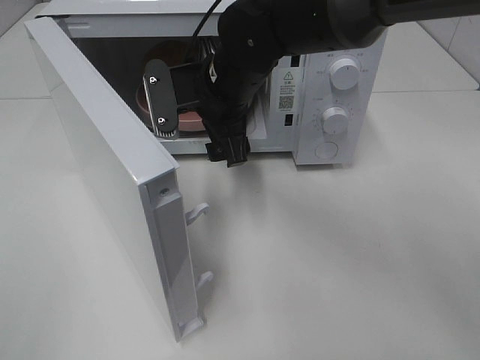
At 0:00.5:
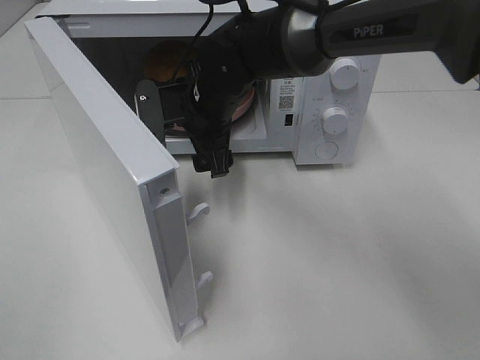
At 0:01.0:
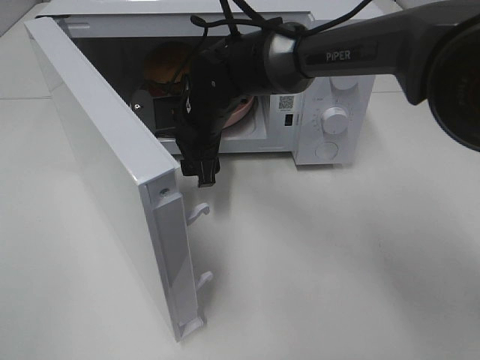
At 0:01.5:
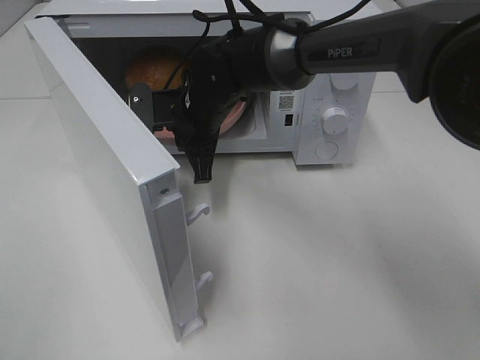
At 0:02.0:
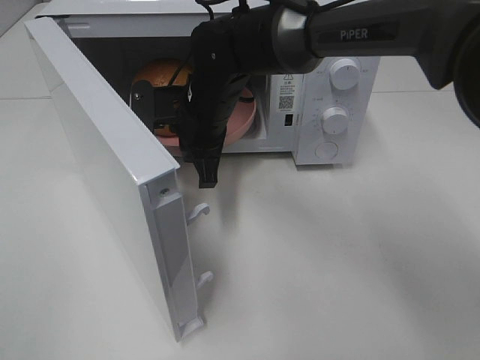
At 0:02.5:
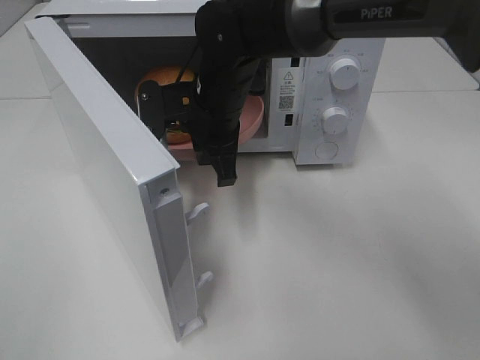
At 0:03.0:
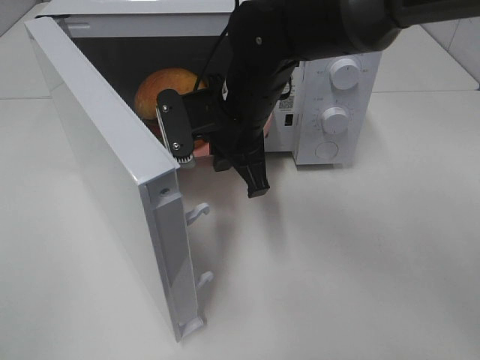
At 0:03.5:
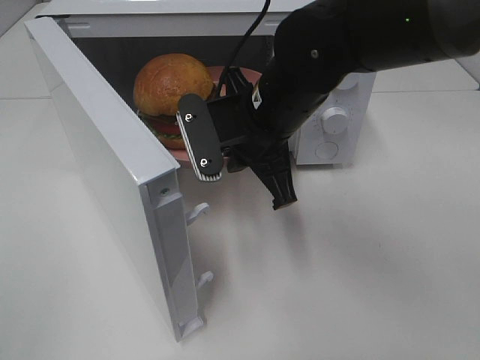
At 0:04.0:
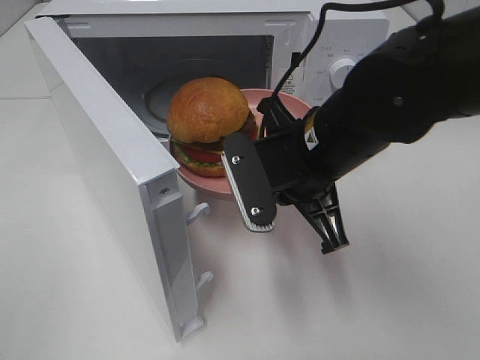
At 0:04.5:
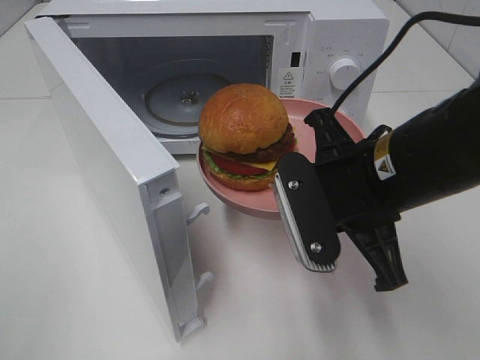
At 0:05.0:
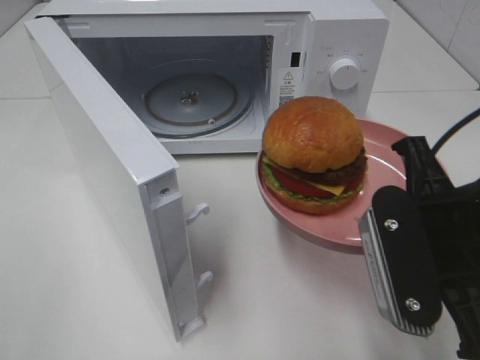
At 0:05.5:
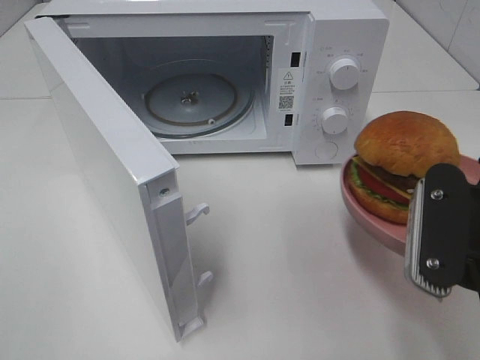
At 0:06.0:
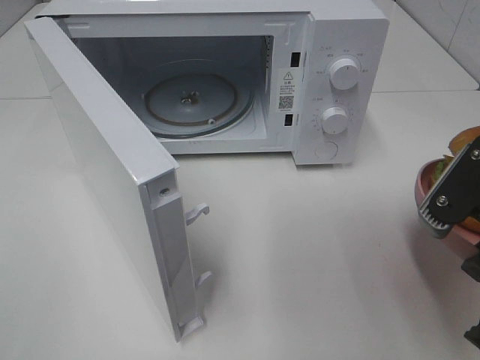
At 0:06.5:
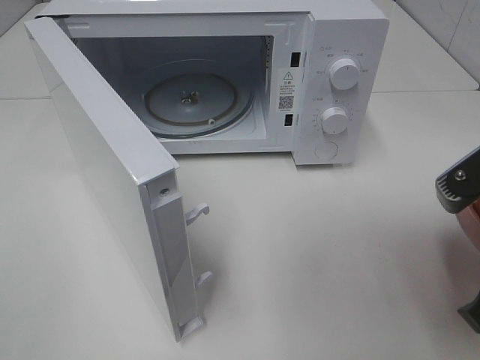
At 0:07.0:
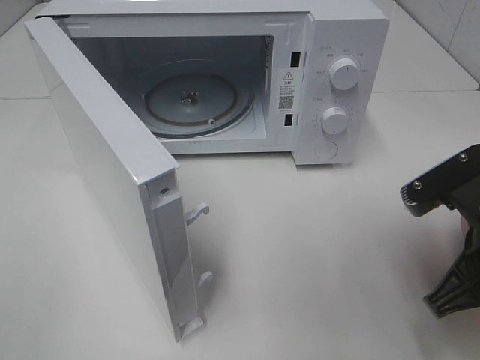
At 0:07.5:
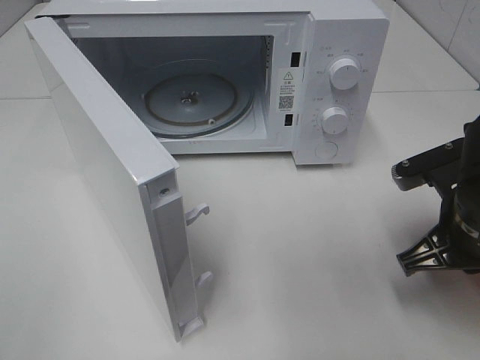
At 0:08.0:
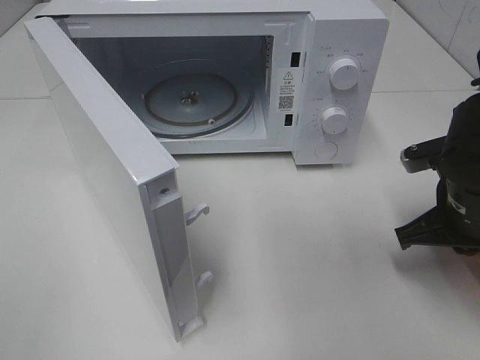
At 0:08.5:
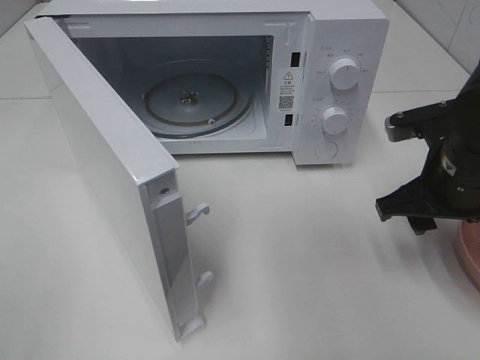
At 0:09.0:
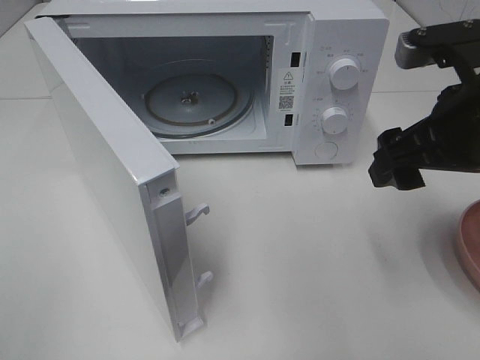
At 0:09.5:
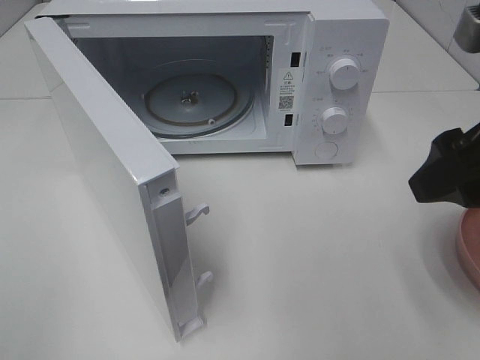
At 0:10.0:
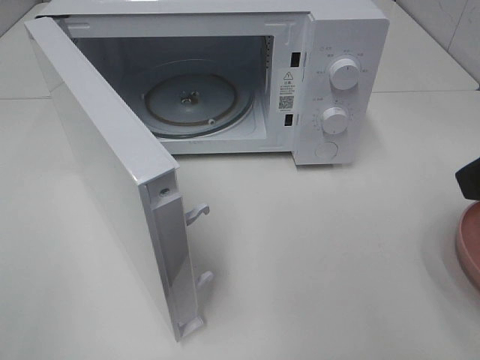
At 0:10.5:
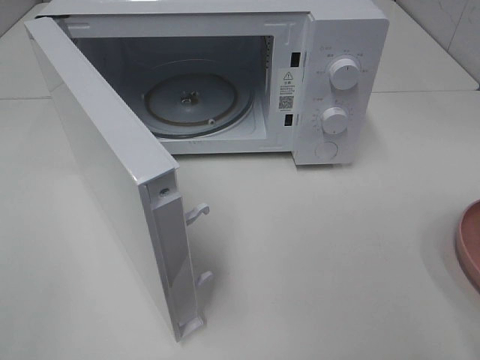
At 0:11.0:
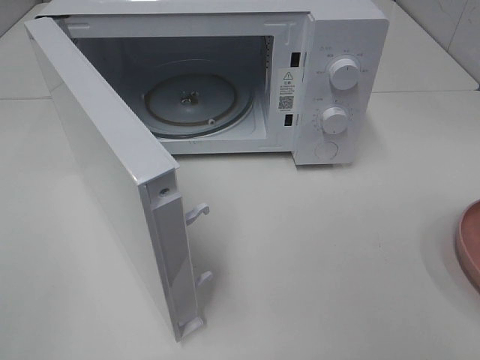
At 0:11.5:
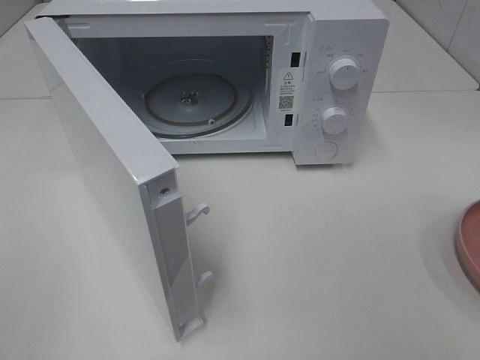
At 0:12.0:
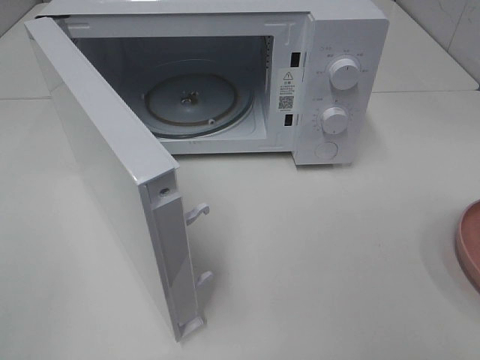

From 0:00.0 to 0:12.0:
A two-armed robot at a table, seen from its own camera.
Task of the whole recording: Heat the burger.
Step, from 0:01.5 to 0:08.0: Right hand: place the plate on the table.
From 0:00.0 to 0:02.0: The right gripper changes place by roughly 5 cm, and closes its fingers.
From 0:02.0 to 0:04.0: The right gripper moves backward and to the right, some 15 cm.
From 0:04.0 to 0:06.0: The right gripper shifts about 20 cm to the right and backward.
From 0:06.0 to 0:08.0: The right gripper travels forward and downward by roughly 15 cm.
From 0:08.0 to 0:10.0: The right gripper travels upward and backward by about 20 cm, and opens up.

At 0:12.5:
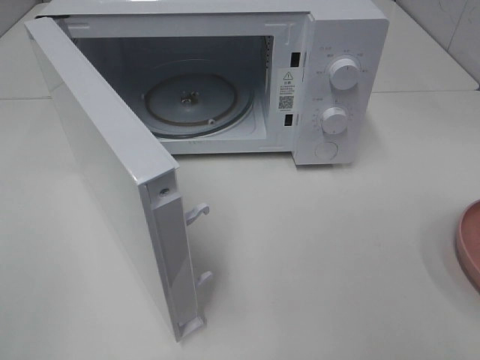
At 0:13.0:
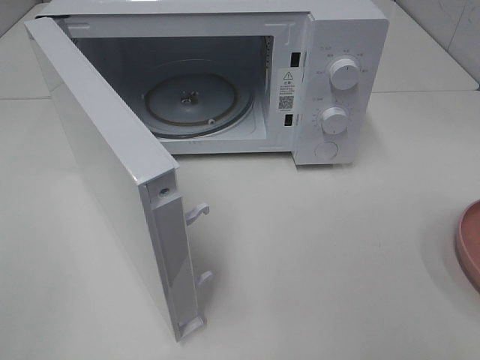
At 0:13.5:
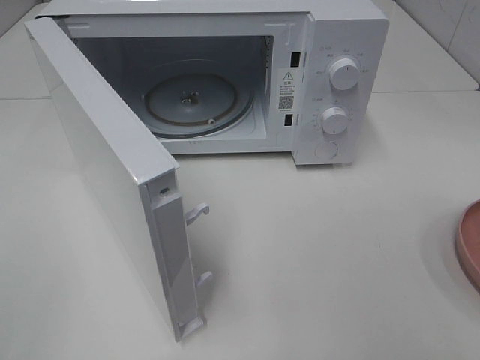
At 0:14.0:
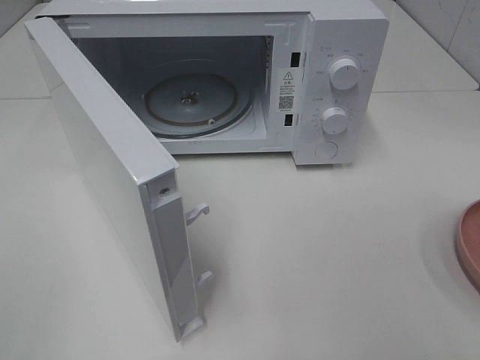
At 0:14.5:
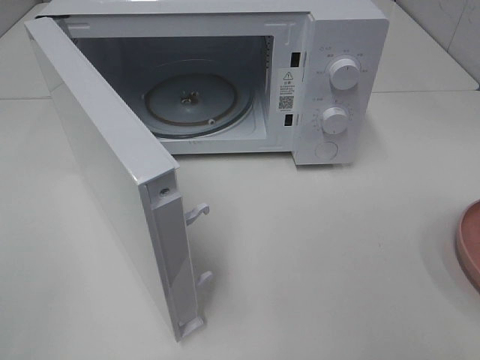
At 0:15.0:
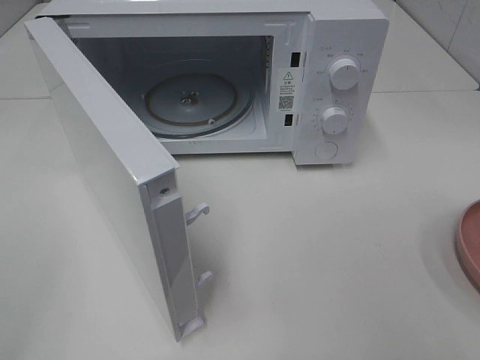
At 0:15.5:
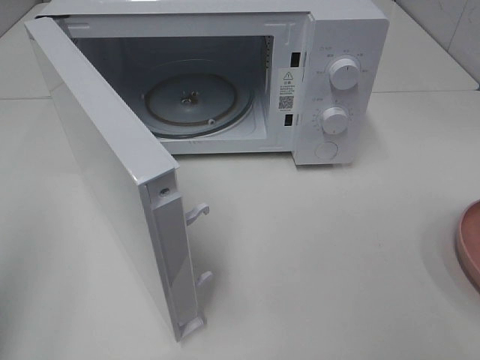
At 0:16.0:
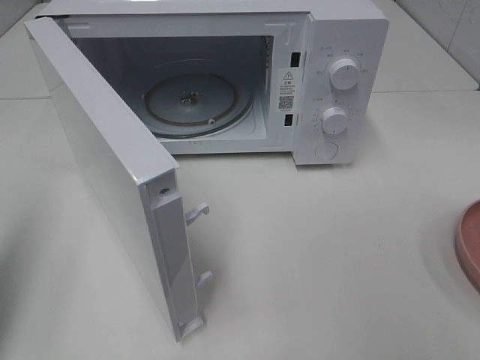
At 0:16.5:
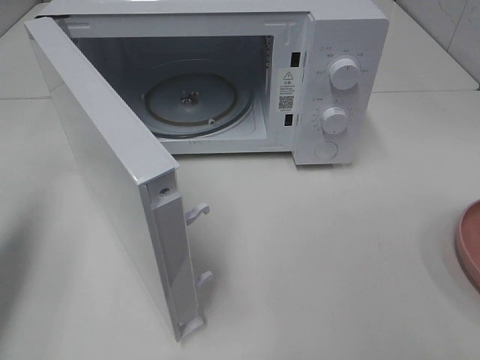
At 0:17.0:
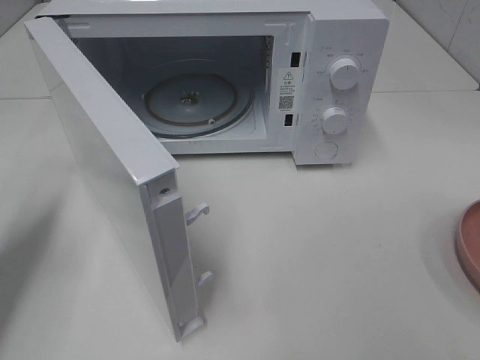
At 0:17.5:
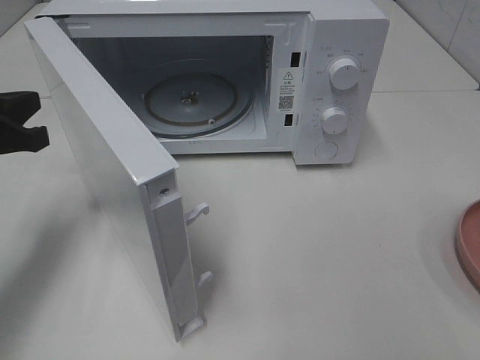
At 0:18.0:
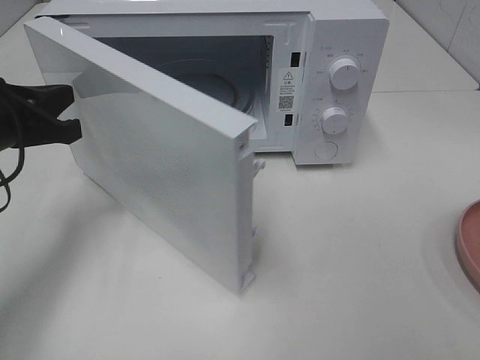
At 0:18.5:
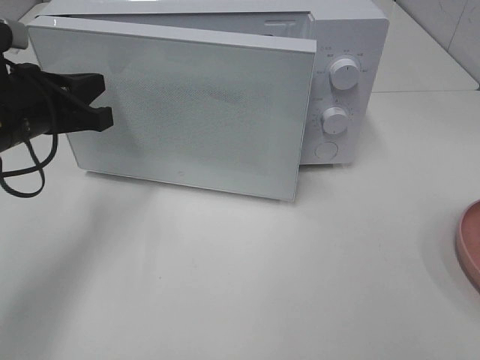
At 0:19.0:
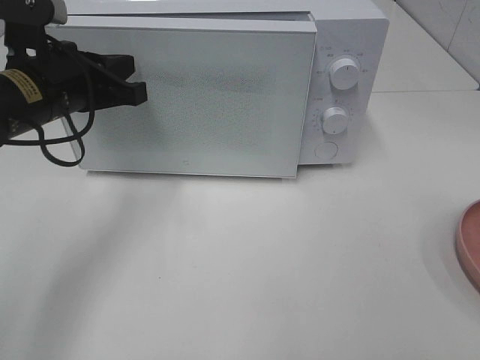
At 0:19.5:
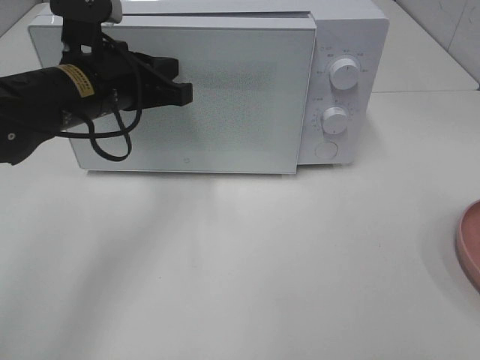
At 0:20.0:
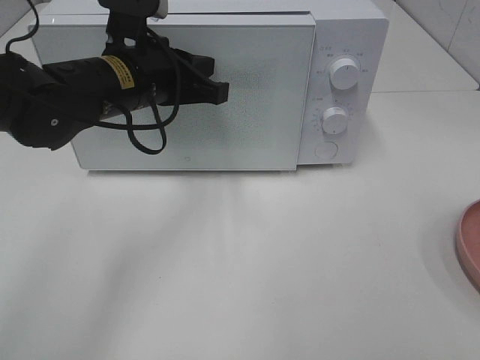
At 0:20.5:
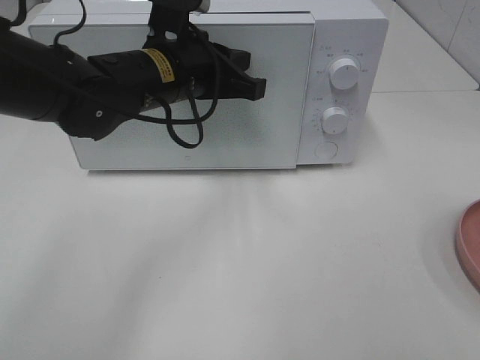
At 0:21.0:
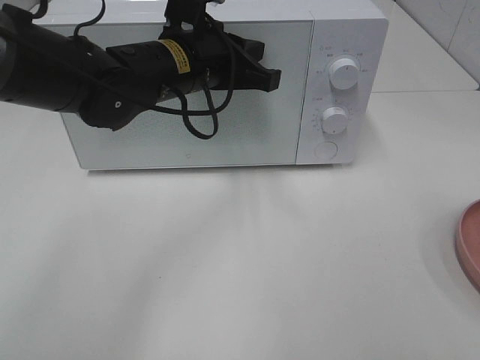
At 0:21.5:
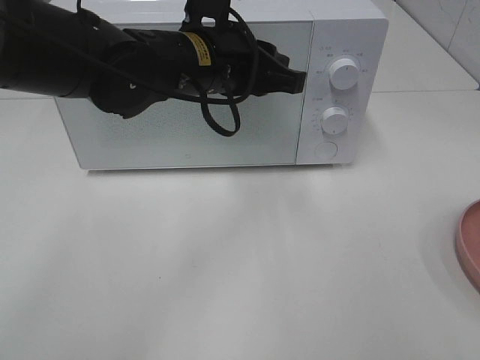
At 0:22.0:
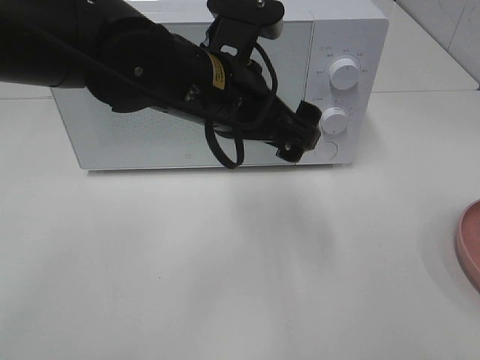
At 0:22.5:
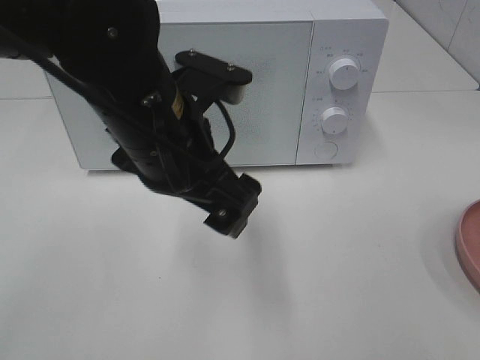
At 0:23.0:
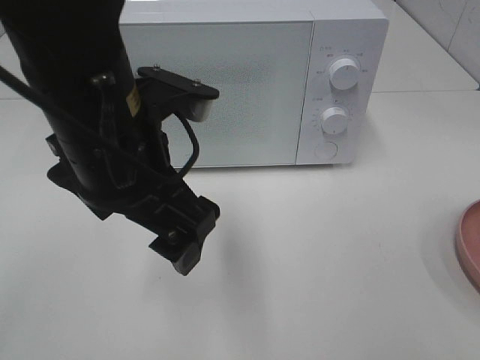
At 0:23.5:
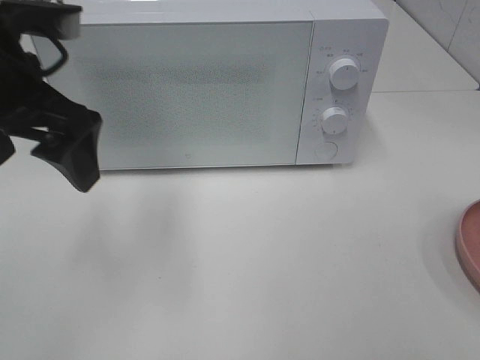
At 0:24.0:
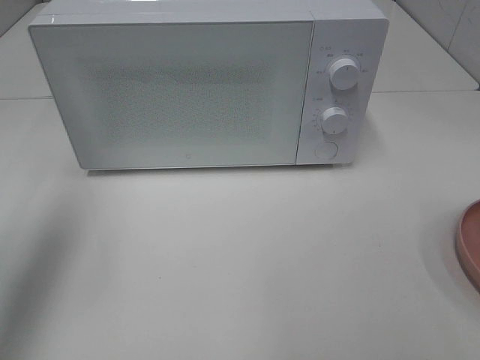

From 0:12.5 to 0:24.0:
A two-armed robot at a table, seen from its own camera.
Task of the whole recording: Heat the burger.
Step, from 0:12.5 to 0:20.5: Left hand: close the microwave door.
From 0:12.5 to 0:14.5: Both grippers stay put.
From 0:14.5 to 0:16.5: The left gripper is displaced forward by approximately 20 cm, and closes its fingers.
From 0:16.5 to 0:18.5: The left gripper heads to the right, forward and downward, covering about 15 cm.
From 0:18.5 to 0:20.0: The left gripper moves to the right, about 10 cm.
From 0:20.0 to 0:22.0: The left gripper travels to the right and backward by about 10 cm, and opens its fingers.
From 0:22.0 to 0:24.0: The left gripper travels to the left by about 25 cm.

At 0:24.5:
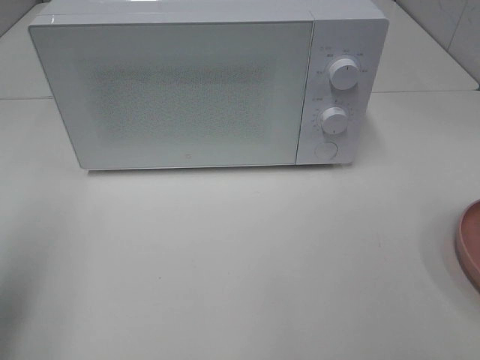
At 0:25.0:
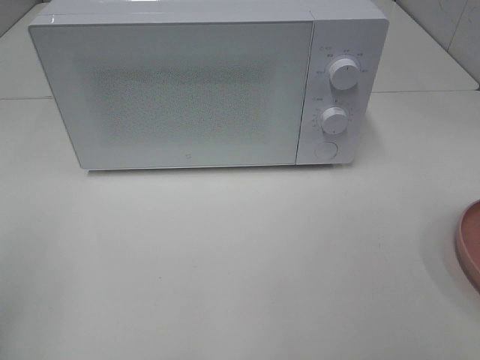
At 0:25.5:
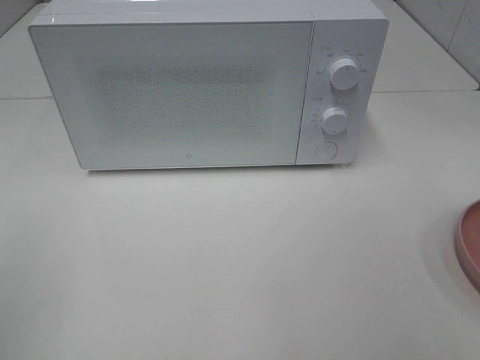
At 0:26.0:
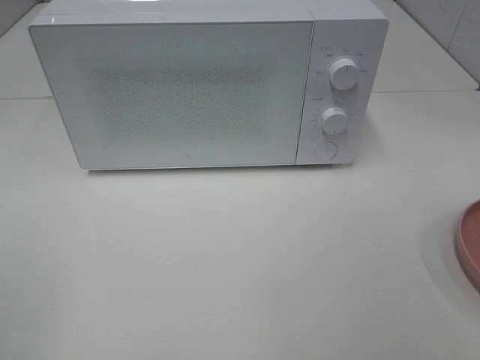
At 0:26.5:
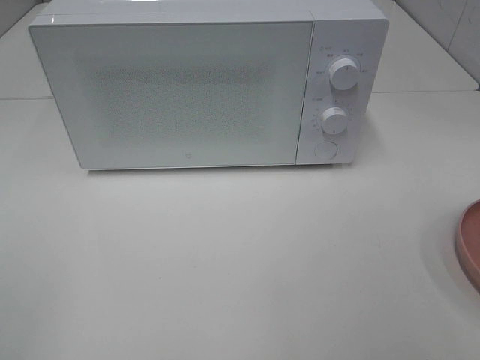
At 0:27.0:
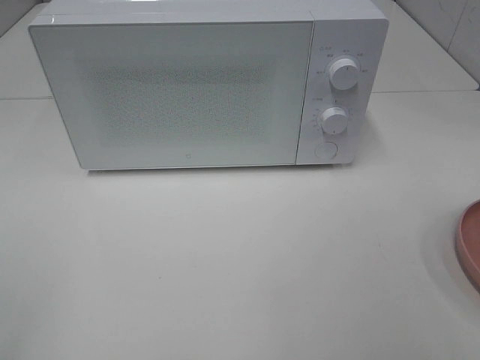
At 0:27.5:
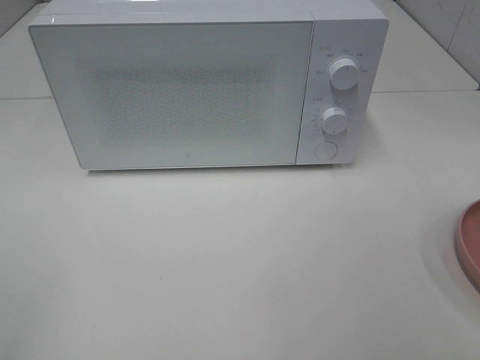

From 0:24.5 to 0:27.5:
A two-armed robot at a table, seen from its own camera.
Task of the whole recording: Heat the burger.
From 0:24.5 to 0:26.0: The left gripper is displaced backward by some 15 cm.
